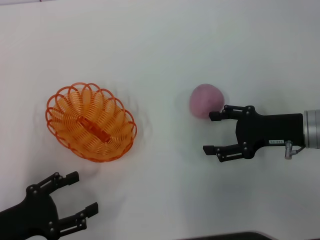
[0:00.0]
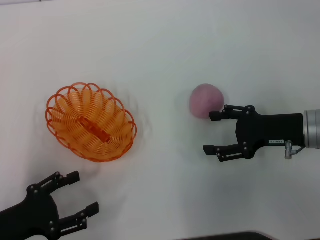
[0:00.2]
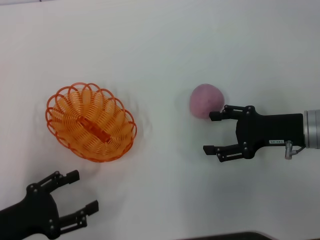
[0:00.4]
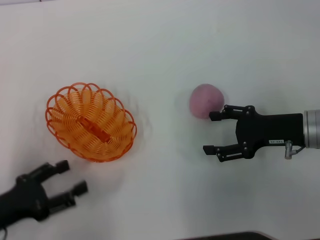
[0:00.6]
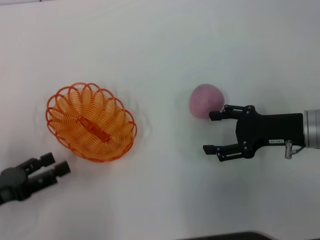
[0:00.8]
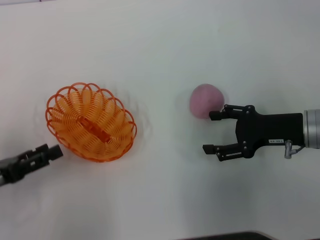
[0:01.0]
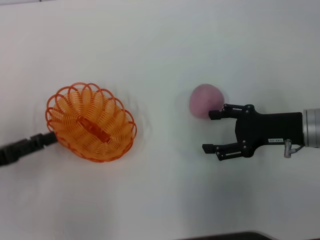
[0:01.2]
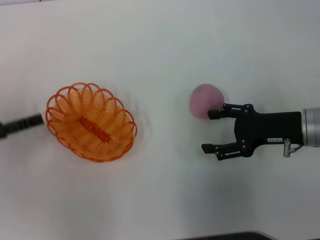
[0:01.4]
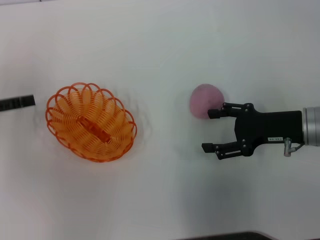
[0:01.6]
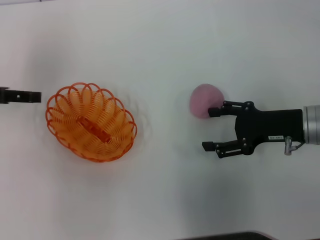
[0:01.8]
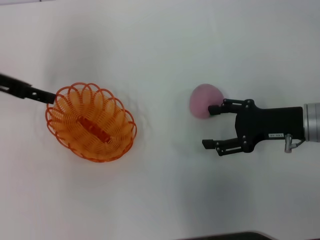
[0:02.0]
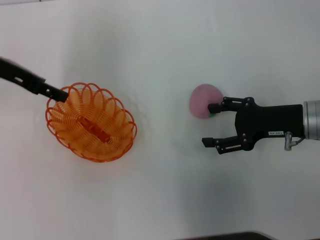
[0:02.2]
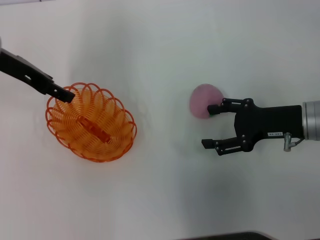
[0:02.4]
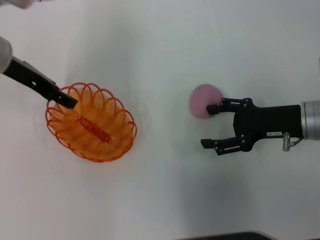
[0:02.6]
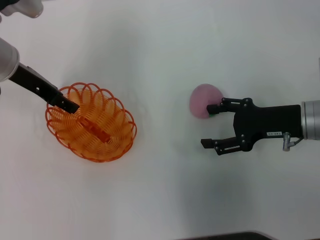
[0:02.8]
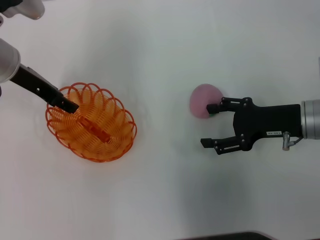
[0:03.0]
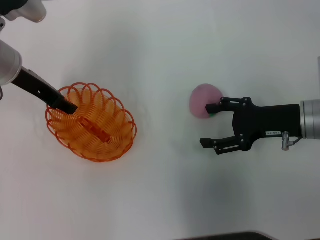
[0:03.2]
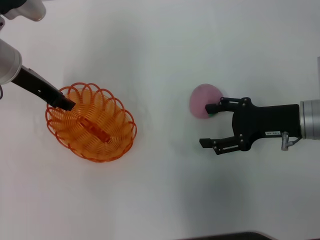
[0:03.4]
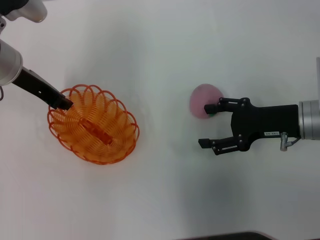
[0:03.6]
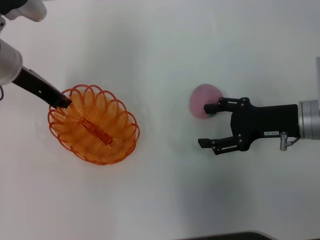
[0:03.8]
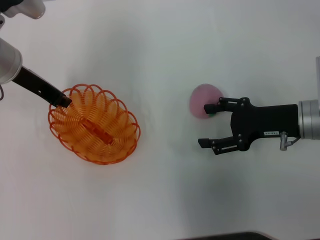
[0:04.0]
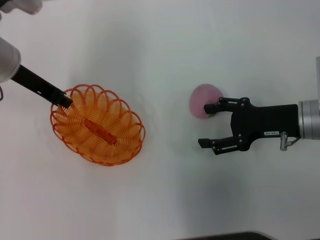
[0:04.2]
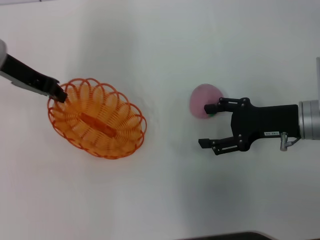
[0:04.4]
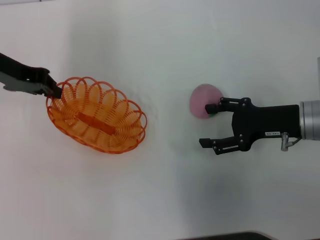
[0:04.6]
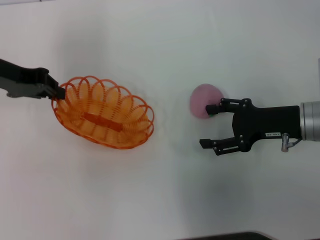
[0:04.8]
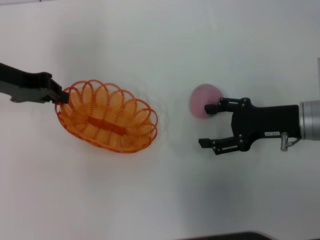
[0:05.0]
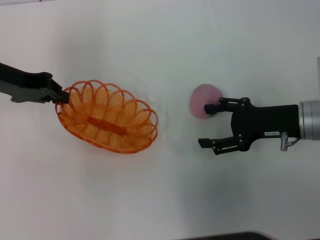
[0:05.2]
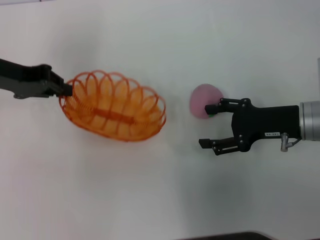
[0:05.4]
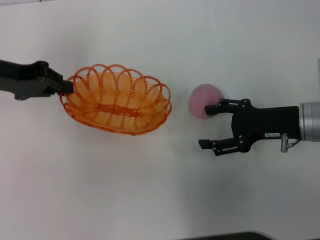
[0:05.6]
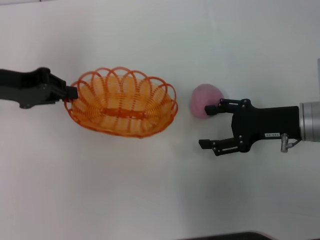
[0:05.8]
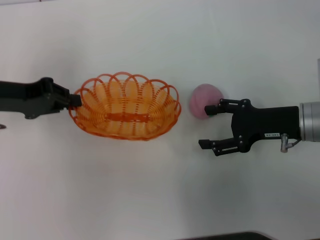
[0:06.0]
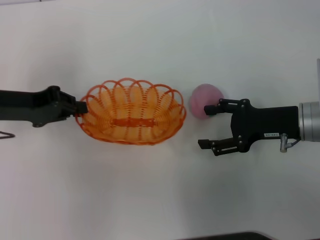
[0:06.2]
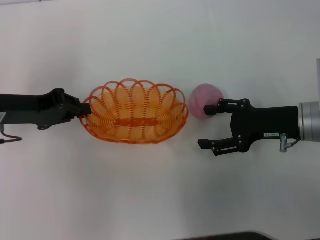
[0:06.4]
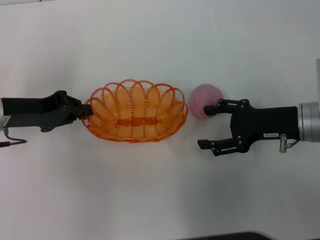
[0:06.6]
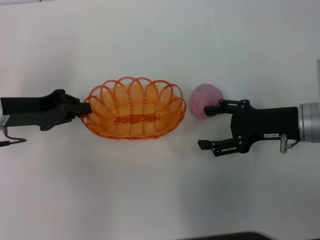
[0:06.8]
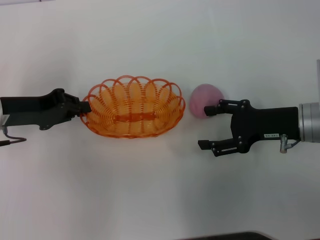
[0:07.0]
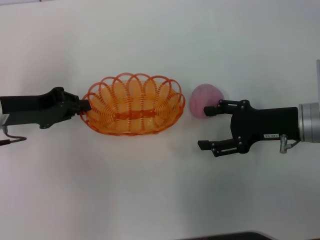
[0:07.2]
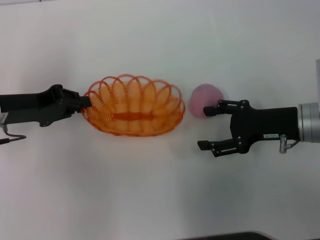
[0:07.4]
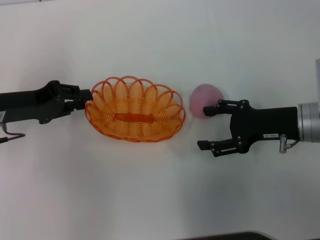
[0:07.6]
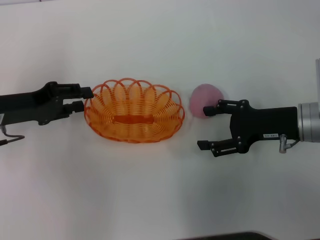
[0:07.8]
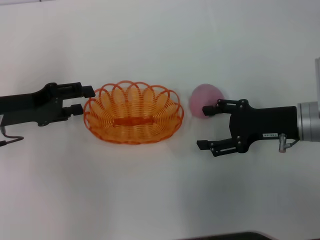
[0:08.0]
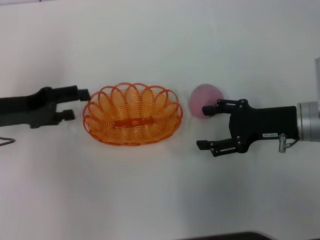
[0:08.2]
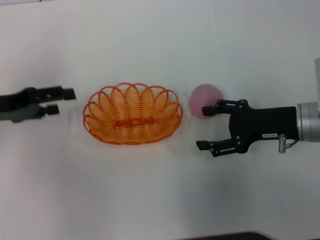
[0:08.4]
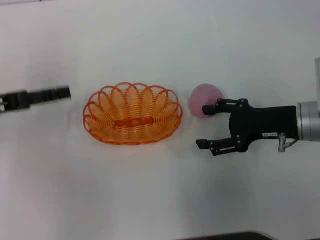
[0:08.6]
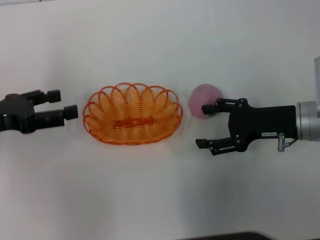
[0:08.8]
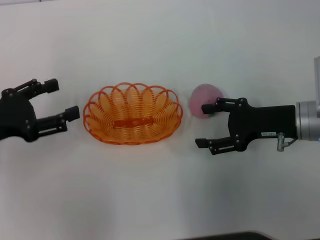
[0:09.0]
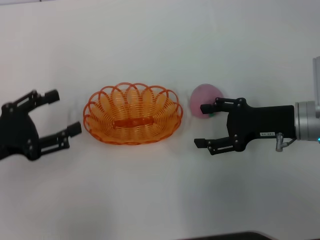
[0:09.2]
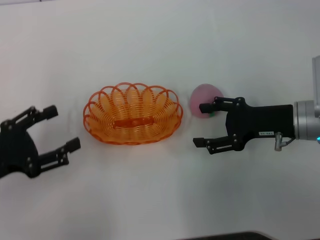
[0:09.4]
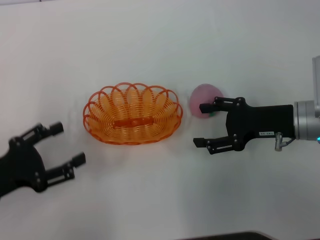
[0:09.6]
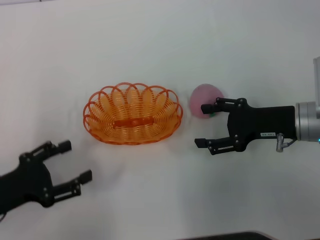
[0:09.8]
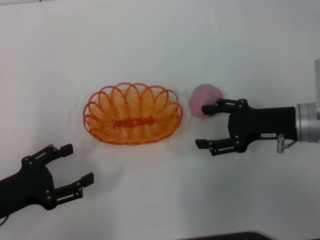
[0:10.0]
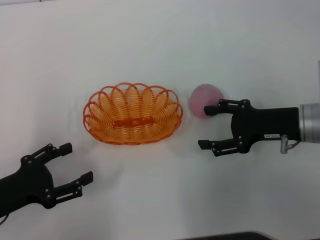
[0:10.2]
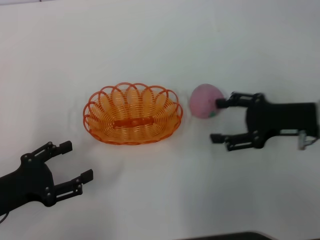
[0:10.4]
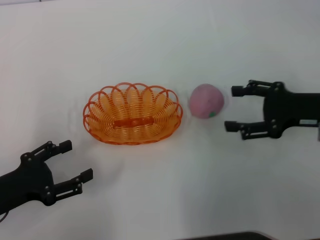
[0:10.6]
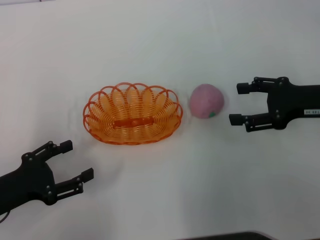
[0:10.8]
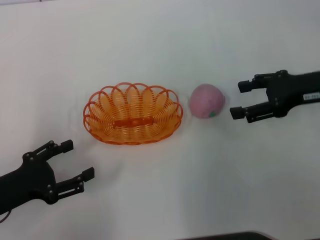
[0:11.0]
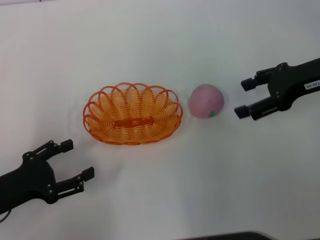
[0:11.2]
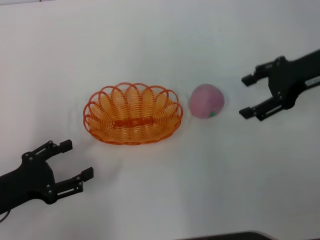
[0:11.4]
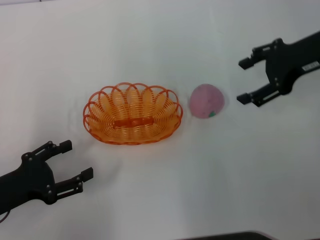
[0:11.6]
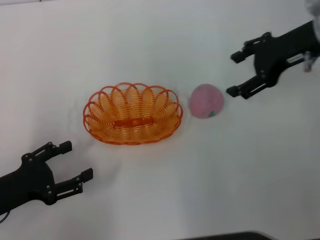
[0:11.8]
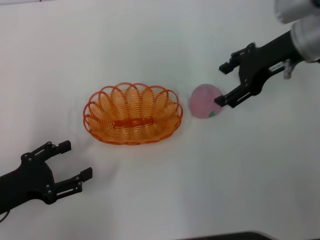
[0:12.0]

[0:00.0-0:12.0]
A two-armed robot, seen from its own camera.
Step, 0.0 to 5.4 s: Pick up the basket with the left gripper.
Step, 5.6 to 8.4 s: Place the basket in the center of view with the left gripper.
0.0 to 1.6 s: The left gripper heads forward and upward, covering approximately 15 cm.
1.6 to 3.0 s: The left gripper is displaced to the right and forward by about 15 cm.
3.0 to 4.4 s: The left gripper closes up.
4.4 to 6.0 s: The left gripper heads backward, covering about 5 cm.
6.0 to 7.6 s: There are only small adjustments of the grippers.
7.6 to 9.0 s: The left gripper moves backward, some 5 cm, and opens up.
9.0 to 10.4 s: The left gripper heads backward and downward, covering about 10 cm.
10.4 to 12.0 s: The right gripper is displaced upward and forward by roughly 15 cm.

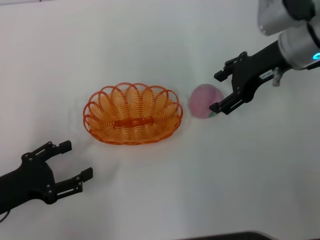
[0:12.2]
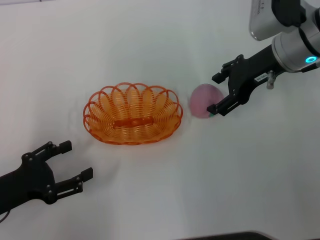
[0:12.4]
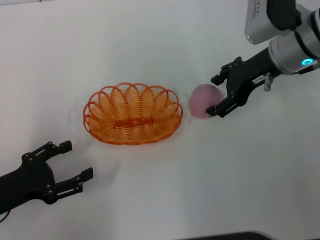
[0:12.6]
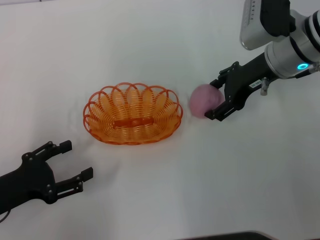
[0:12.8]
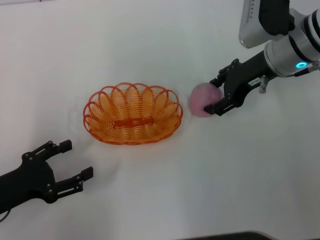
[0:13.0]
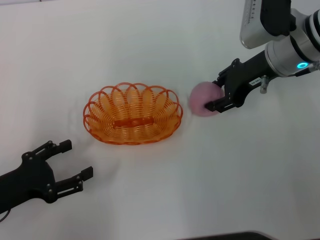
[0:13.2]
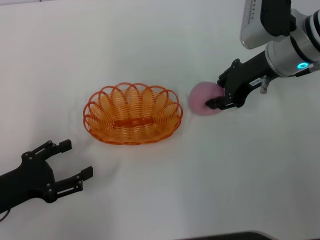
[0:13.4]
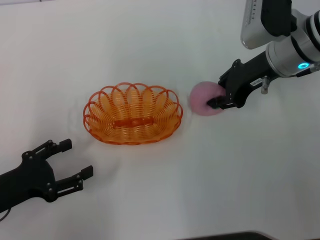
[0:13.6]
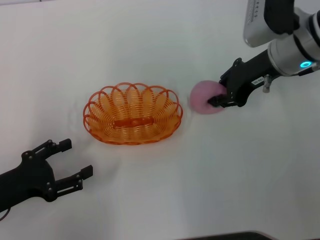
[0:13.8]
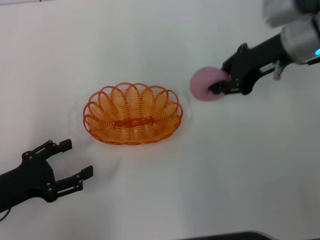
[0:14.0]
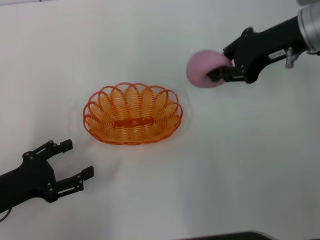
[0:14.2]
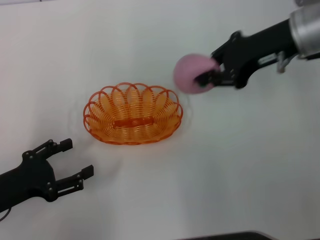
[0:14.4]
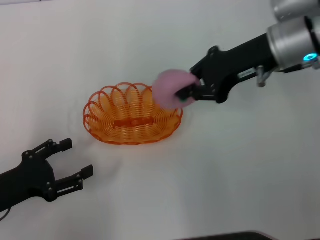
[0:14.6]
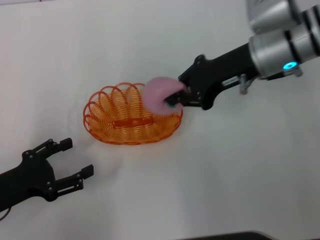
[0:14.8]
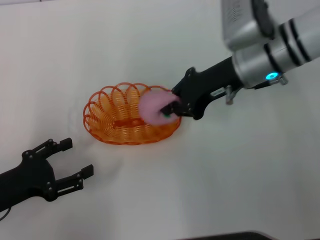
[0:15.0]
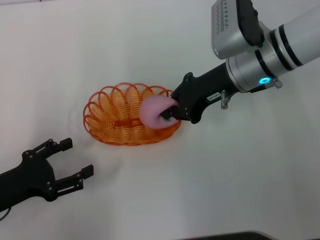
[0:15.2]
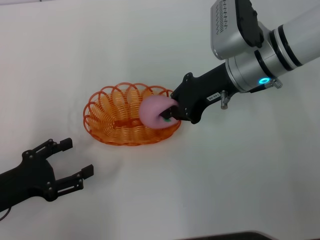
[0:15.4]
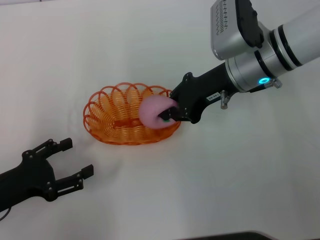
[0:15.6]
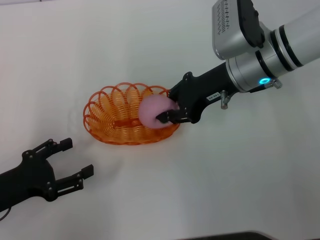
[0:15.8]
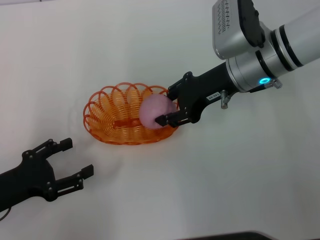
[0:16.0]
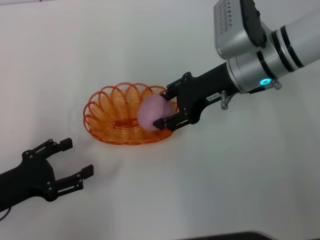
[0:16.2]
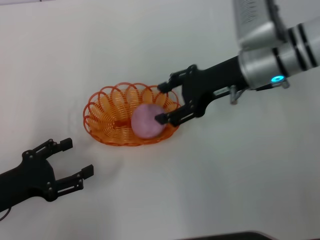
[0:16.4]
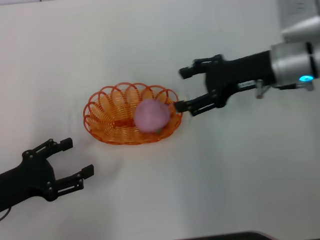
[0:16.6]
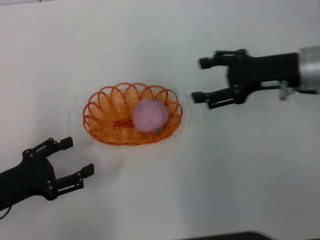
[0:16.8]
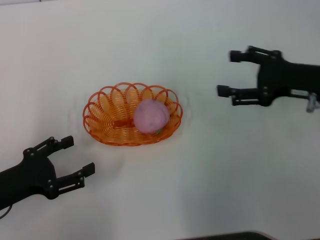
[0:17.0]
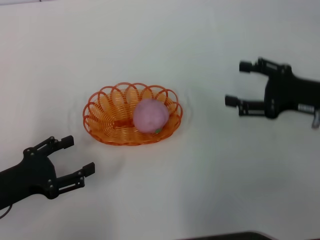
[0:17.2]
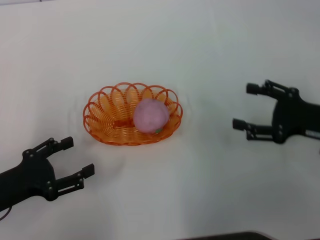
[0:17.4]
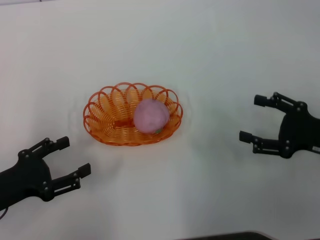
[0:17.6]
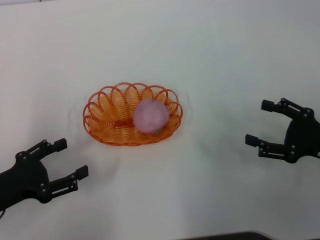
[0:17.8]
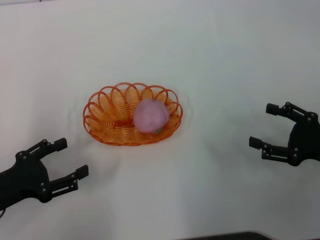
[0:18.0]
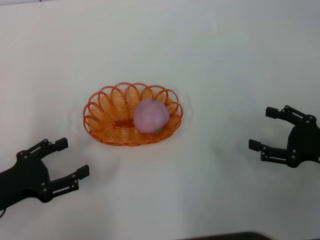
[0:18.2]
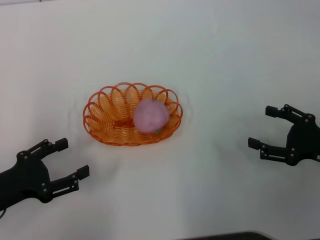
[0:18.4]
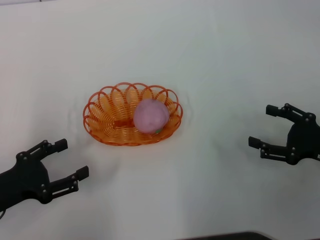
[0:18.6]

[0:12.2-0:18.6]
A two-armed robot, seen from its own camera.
Step, 12.2 to 14.4 s: Pick up the peach with the right gripper.
Step, 14.6 to 16.6 s: Place the peach into the basket with the right gripper.
12.2 to 13.8 s: The right gripper closes its fingers.
13.8 to 15.4 s: The right gripper heads to the left, covering approximately 5 cm.
15.4 to 17.0 s: The right gripper travels to the right and backward by about 15 cm, and opens up.
17.0 to 18.6 s: The right gripper heads backward and downward, covering roughly 10 cm.

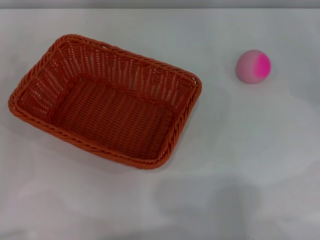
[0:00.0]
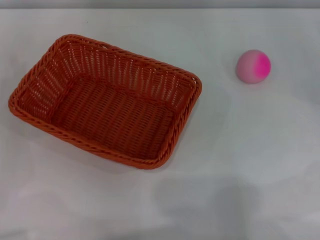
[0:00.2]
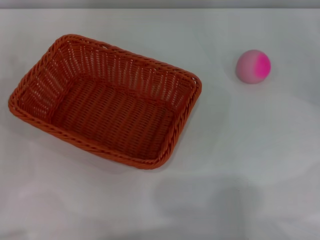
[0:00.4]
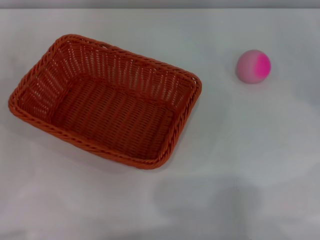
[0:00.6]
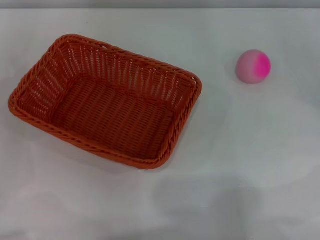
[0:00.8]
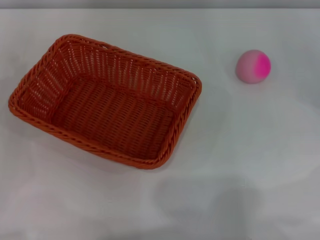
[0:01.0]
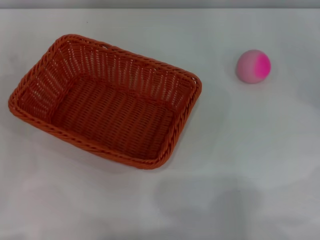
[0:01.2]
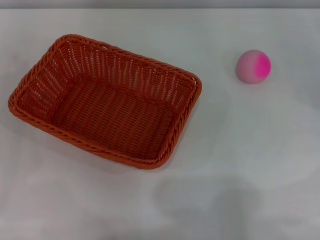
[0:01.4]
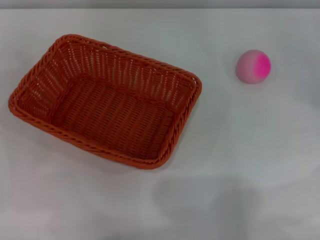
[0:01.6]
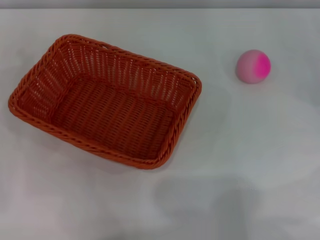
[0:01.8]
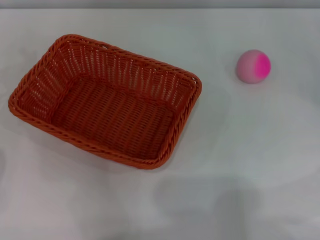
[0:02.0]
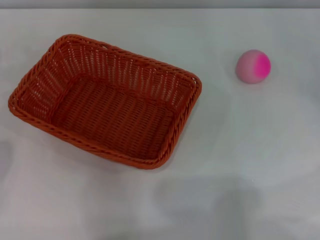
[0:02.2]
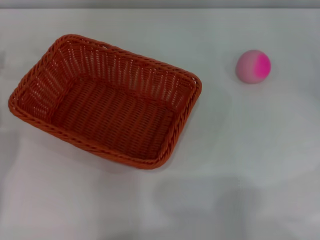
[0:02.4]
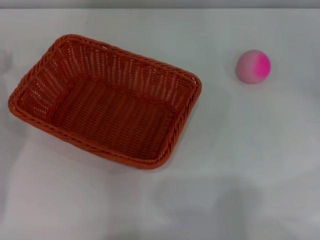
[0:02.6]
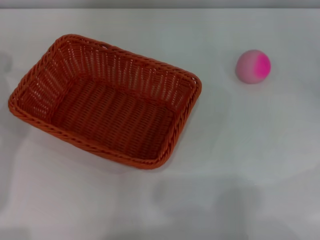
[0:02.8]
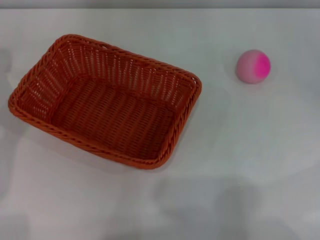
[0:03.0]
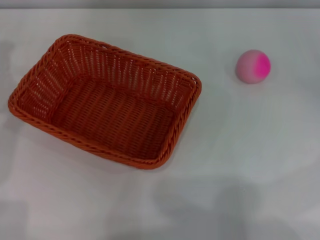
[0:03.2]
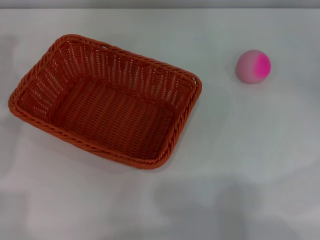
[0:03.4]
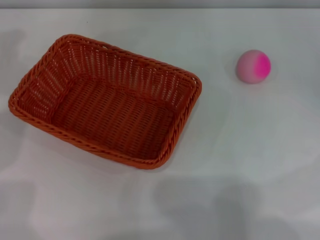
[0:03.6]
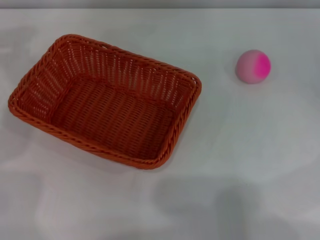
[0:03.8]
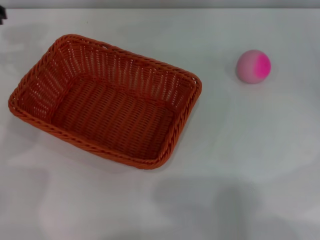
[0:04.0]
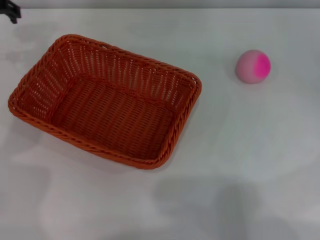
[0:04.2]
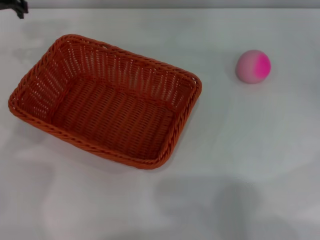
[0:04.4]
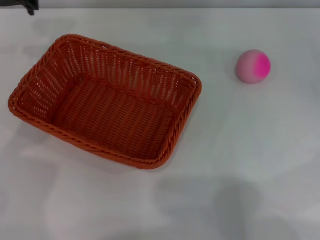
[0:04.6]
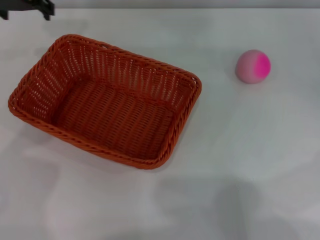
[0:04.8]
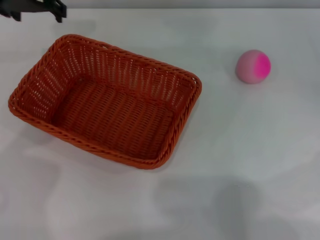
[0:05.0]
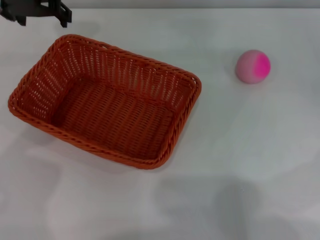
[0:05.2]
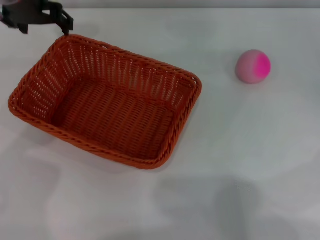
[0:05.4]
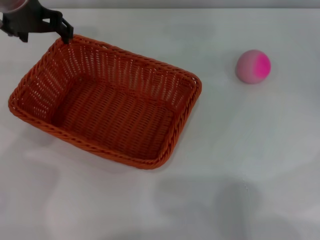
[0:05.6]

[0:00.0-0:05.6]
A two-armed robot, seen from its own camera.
2.8 to 4.2 s: The left gripper moves to the right and upward, roughly 10 cm.
4.2 to 5.6 s: The left gripper moves to the right, approximately 5 cm.
